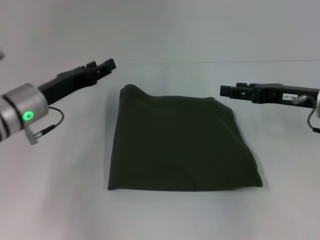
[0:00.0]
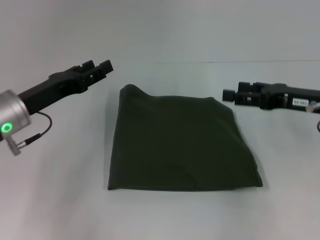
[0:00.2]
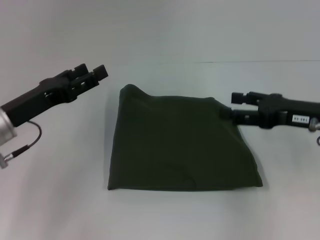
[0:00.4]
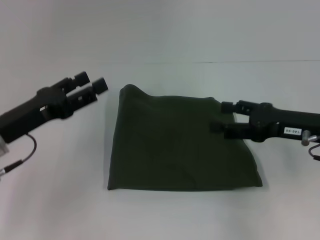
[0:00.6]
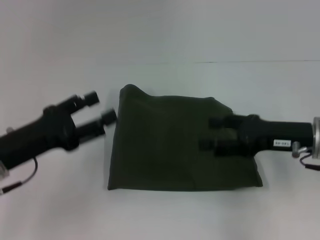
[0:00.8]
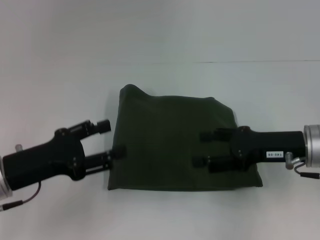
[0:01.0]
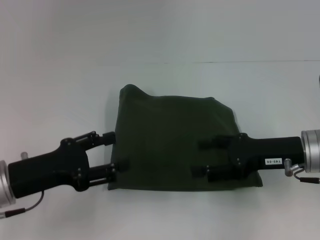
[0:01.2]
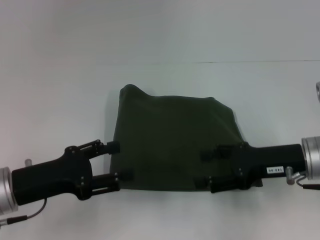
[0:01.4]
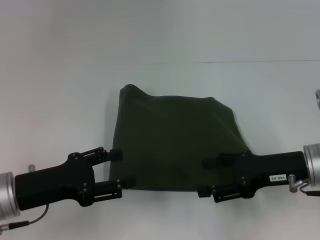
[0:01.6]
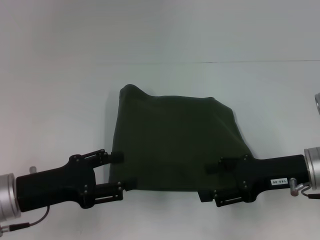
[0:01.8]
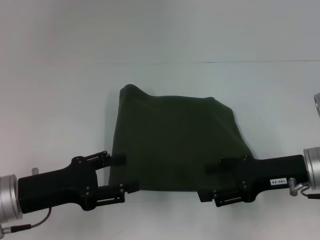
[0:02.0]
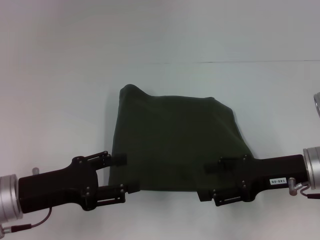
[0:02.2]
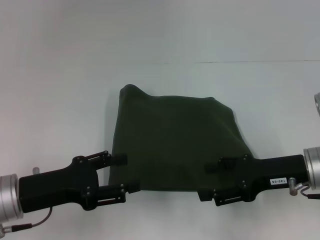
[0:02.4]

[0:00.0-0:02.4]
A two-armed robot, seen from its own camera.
0:00.0 to 0:01.2: The left gripper travels backward by some 10 cm, and opens its fingers; the right gripper is displaced backward by some 5 cm.
0:01.2 to 0:02.4: The grippers make only small movements.
